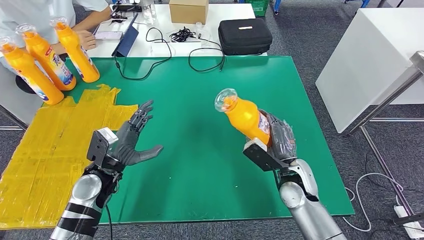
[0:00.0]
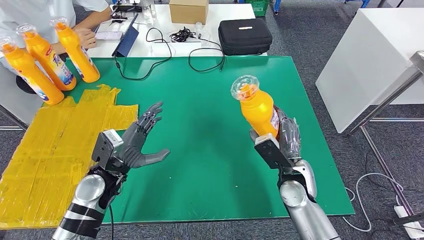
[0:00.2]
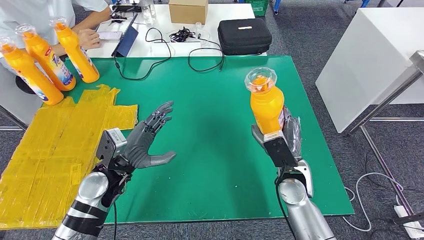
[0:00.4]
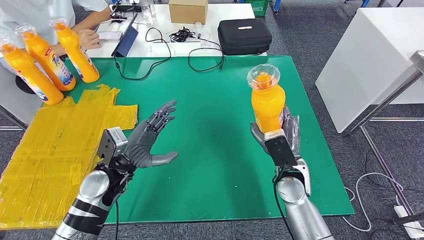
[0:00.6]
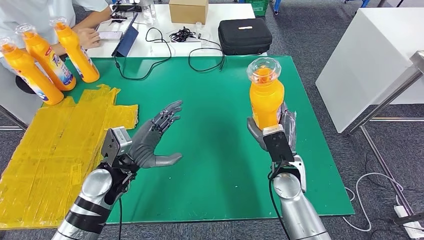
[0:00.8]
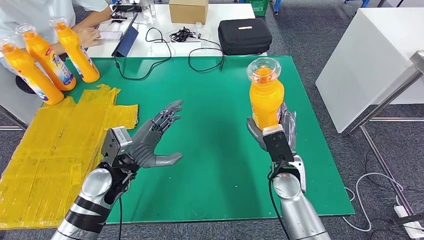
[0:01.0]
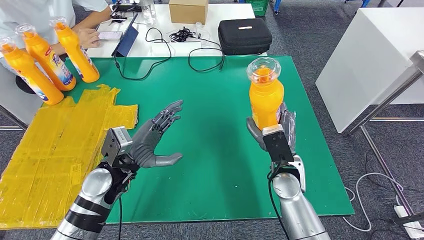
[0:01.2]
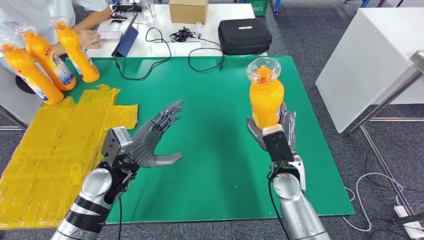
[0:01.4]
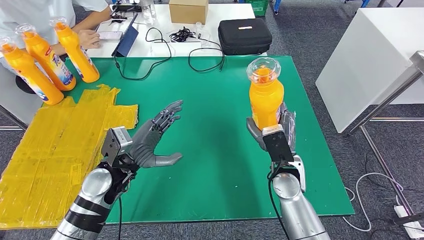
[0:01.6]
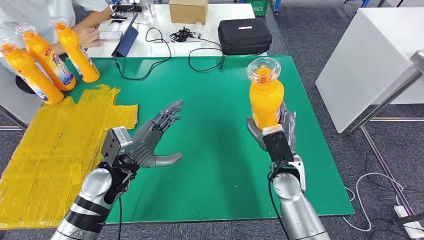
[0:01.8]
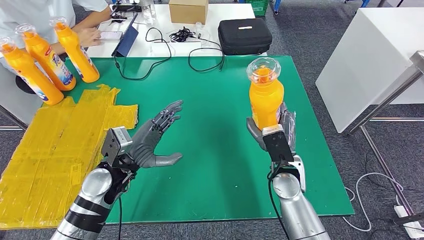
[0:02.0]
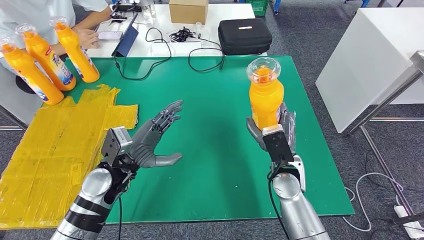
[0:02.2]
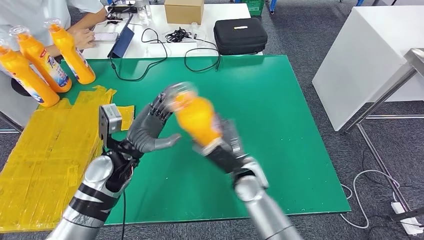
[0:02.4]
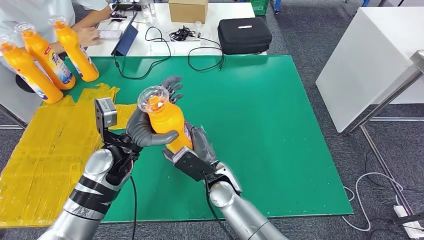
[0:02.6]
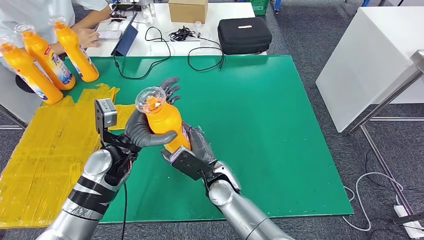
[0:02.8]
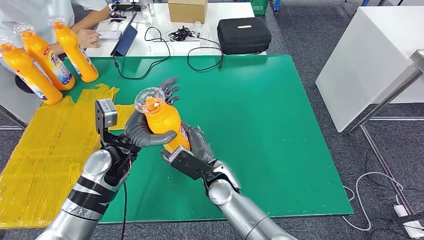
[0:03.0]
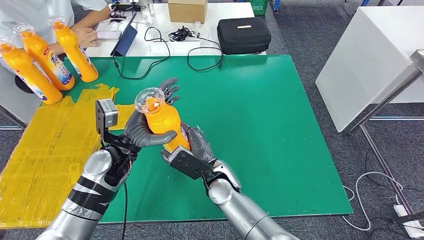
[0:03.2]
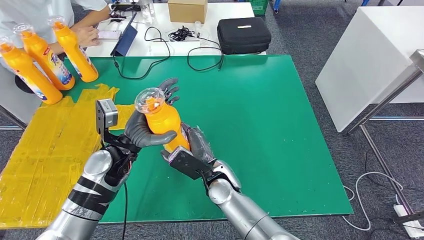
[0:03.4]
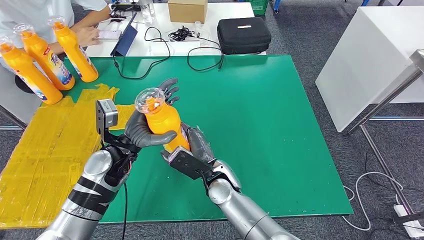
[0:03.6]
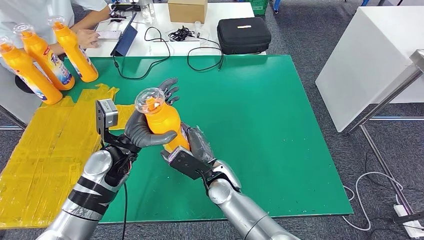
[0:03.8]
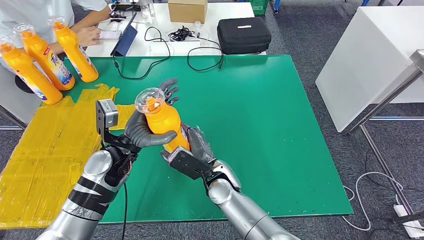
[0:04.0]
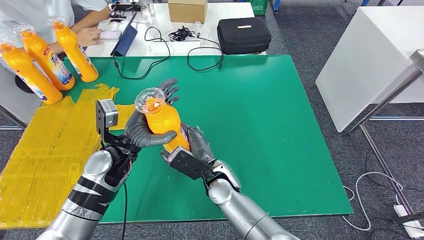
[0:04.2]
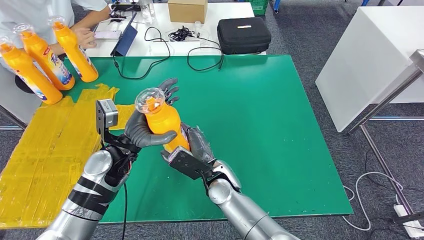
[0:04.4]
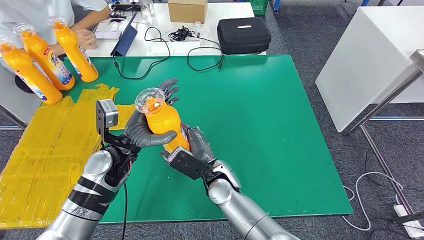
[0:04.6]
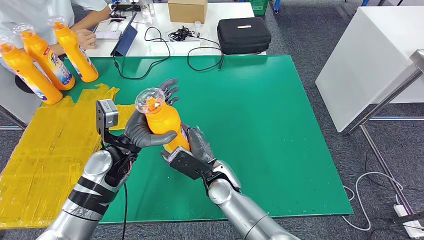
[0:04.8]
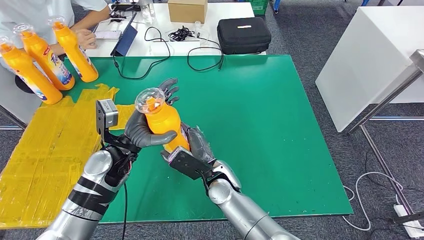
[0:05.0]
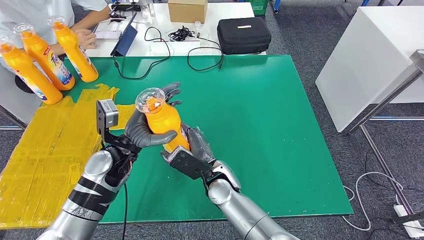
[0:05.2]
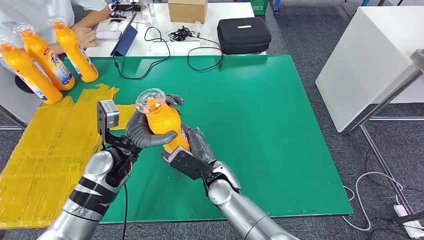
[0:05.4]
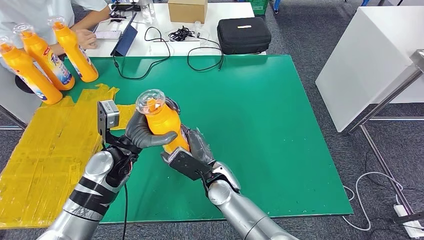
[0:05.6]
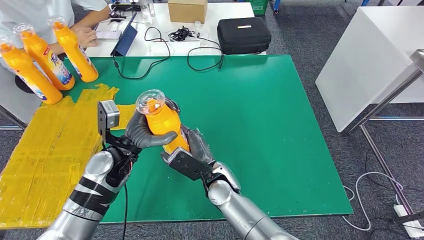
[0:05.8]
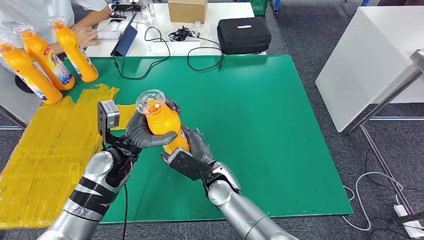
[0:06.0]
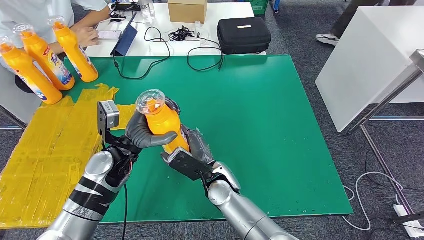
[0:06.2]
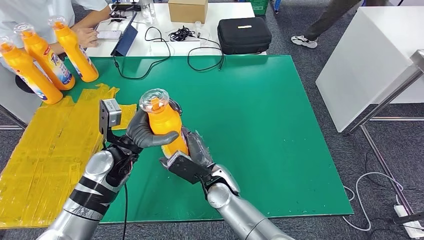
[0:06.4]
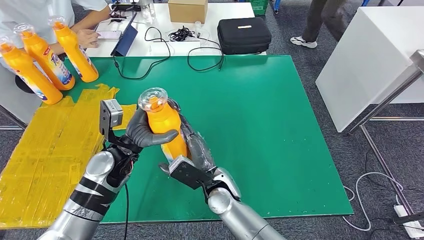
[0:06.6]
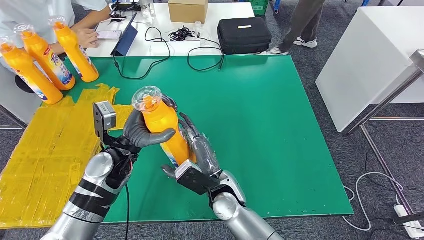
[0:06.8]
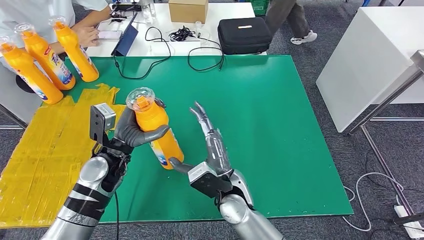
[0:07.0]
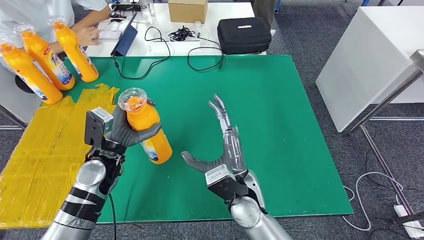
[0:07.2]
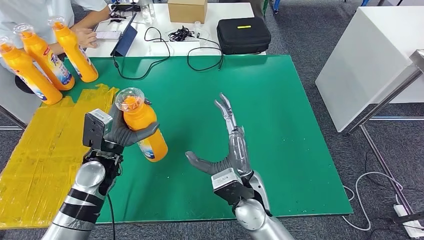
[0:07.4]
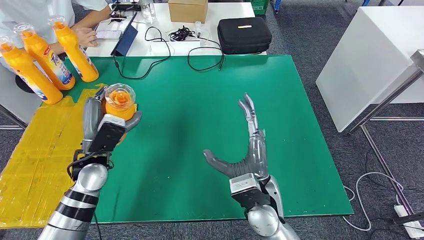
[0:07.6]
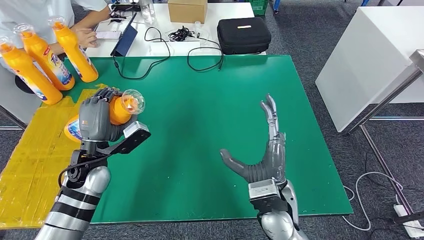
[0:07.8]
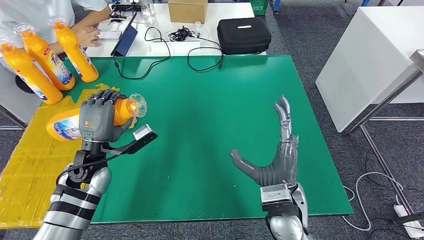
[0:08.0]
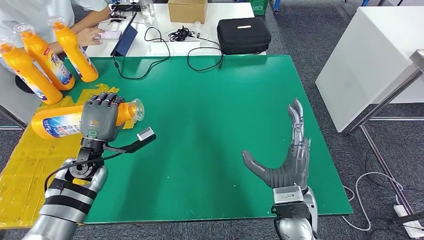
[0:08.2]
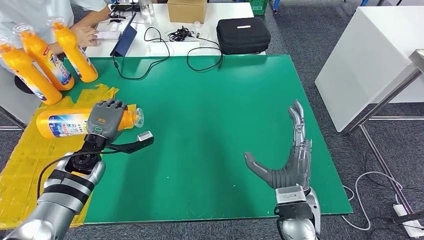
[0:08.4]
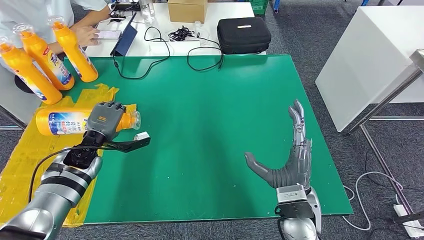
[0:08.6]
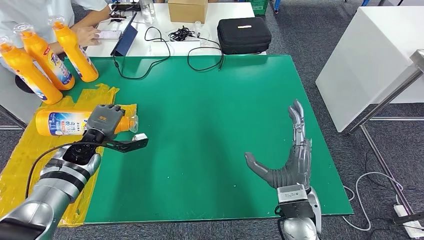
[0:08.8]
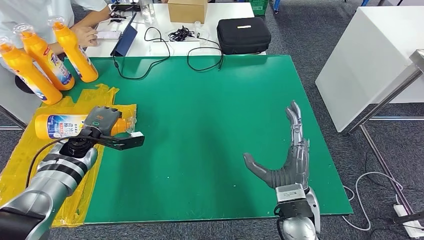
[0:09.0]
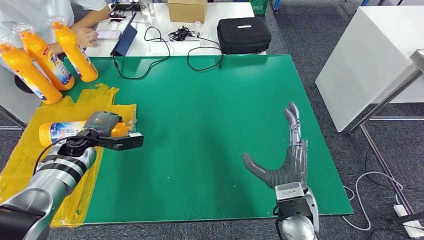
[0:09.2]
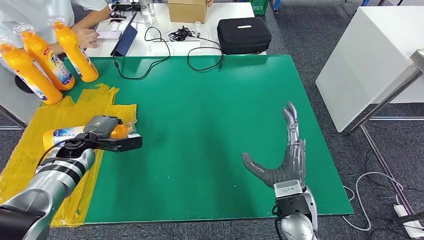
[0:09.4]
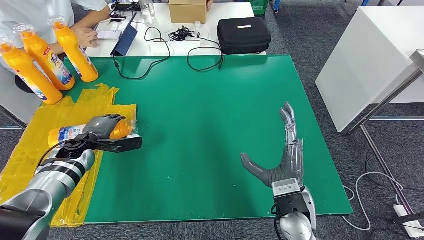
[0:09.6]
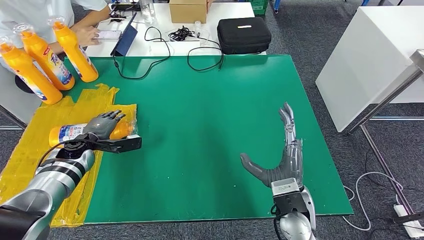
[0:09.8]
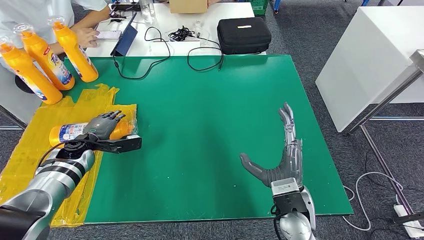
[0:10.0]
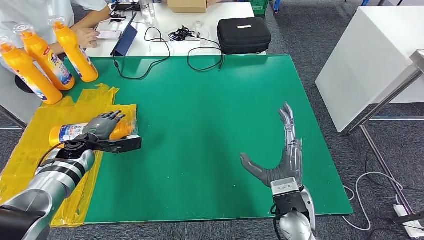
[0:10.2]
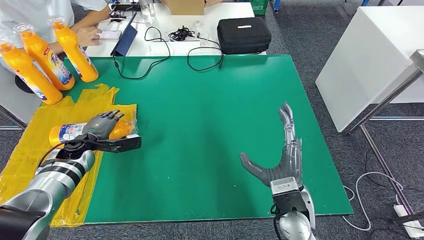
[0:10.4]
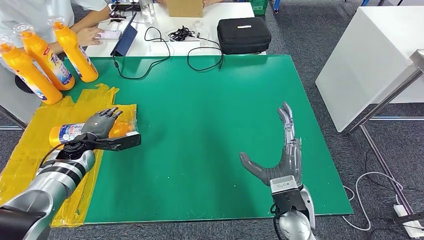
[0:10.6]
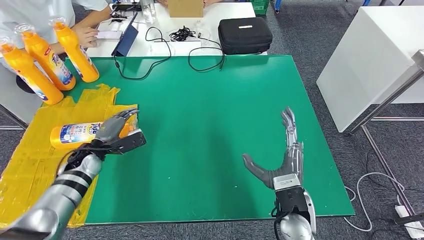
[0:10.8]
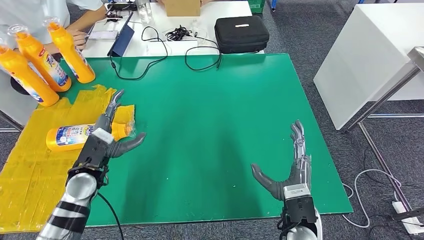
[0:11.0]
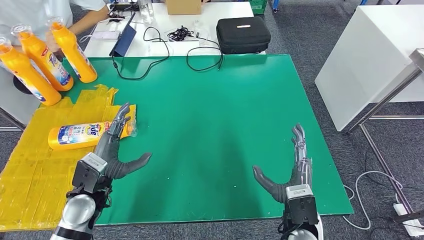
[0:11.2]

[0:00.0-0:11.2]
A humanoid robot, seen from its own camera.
Step, 0:01.4 to 0:11.2: Flip the fast-moving consumer goods bottle to the front side.
0:00.0 to 0:01.6: The left hand changes place by approximately 5 cm.
0:03.2 to 0:06.4: Both hands stay about where they are.
0:06.4 to 0:08.0: The left hand shifts some 5 cm to the left. The right hand is displaced to the right, upward and backward by about 15 cm.
0:08.0 to 0:09.6: The left hand goes about 15 cm to the left, forward and downward.
